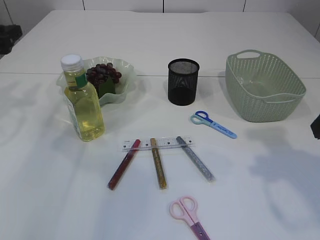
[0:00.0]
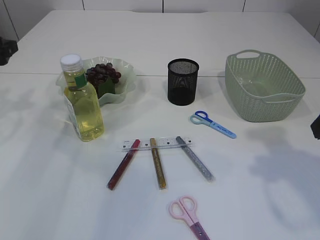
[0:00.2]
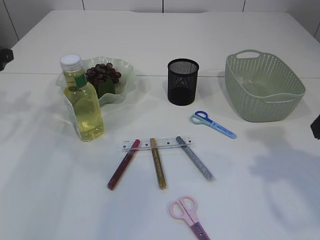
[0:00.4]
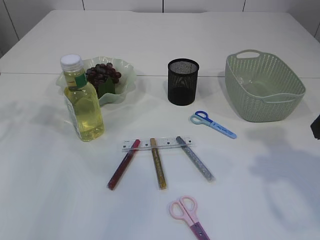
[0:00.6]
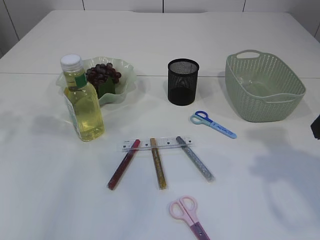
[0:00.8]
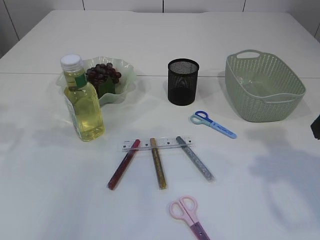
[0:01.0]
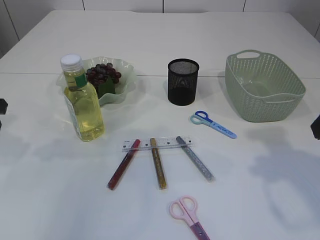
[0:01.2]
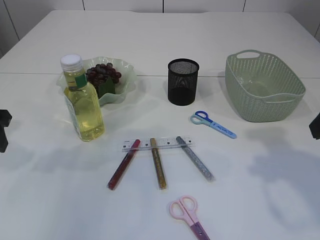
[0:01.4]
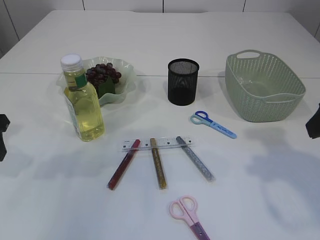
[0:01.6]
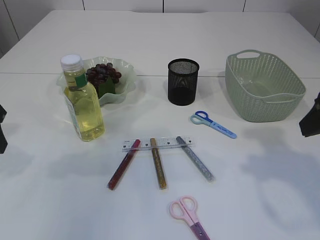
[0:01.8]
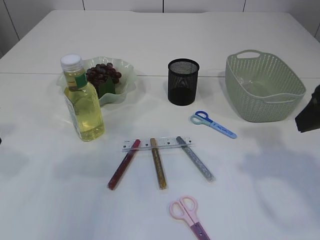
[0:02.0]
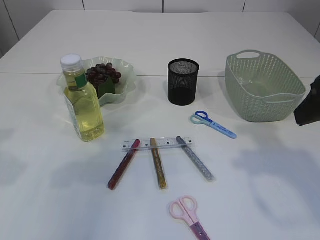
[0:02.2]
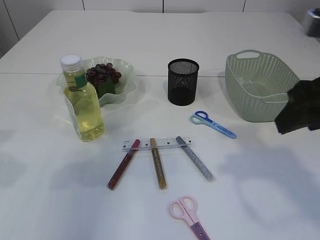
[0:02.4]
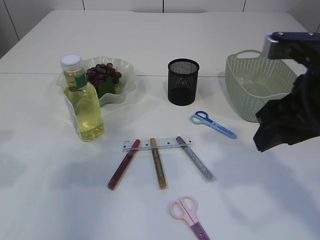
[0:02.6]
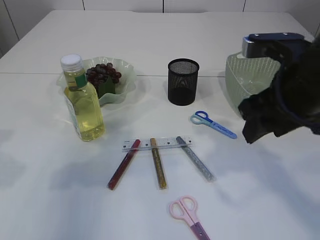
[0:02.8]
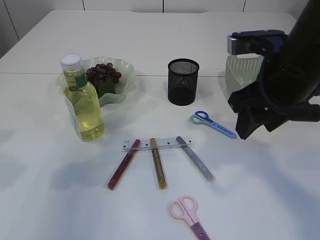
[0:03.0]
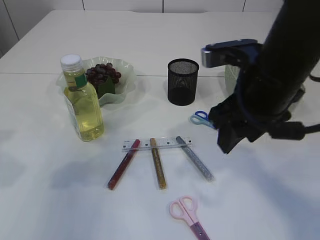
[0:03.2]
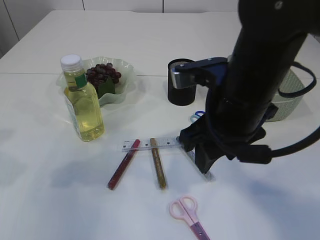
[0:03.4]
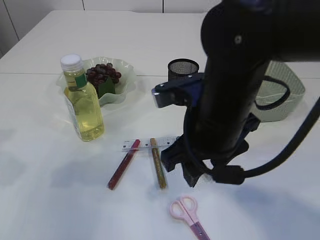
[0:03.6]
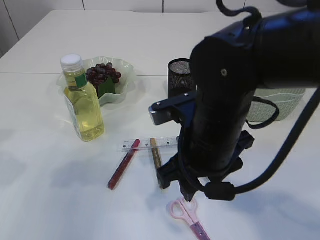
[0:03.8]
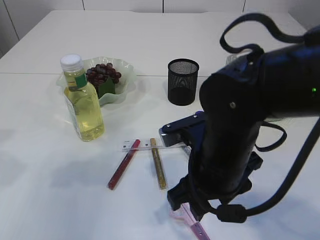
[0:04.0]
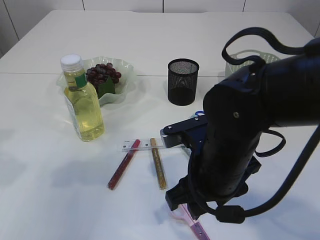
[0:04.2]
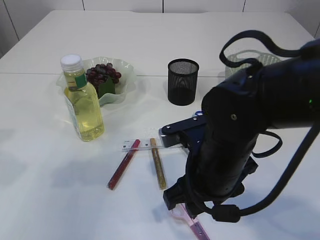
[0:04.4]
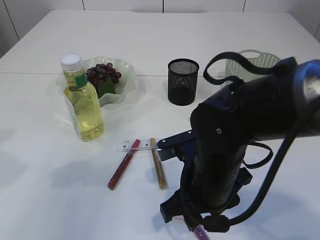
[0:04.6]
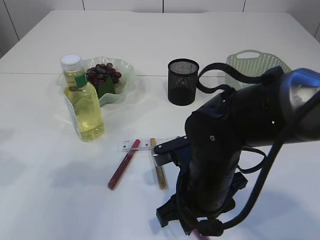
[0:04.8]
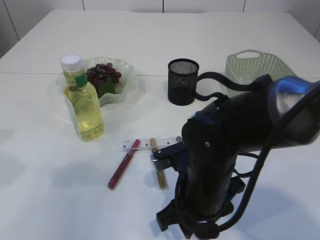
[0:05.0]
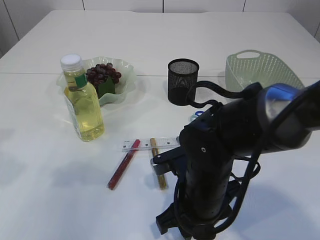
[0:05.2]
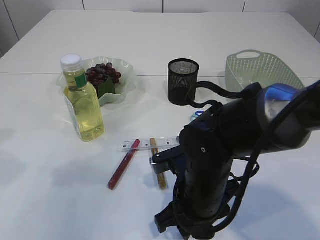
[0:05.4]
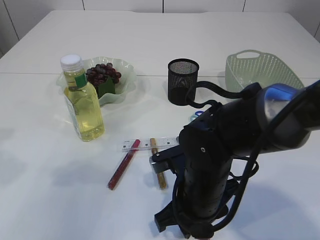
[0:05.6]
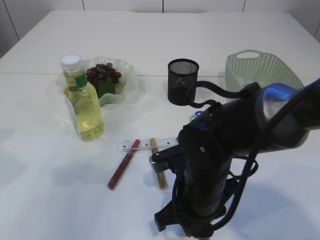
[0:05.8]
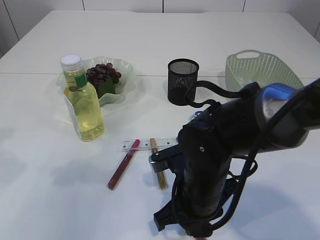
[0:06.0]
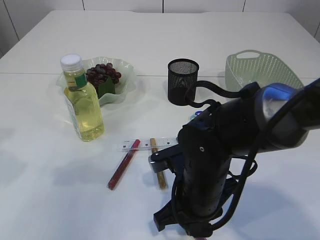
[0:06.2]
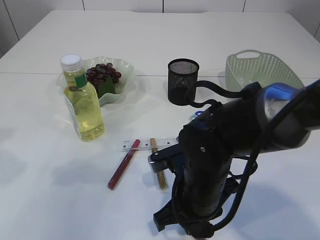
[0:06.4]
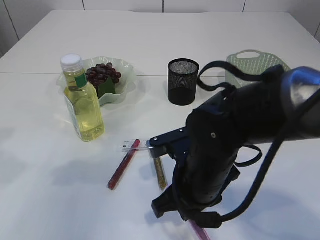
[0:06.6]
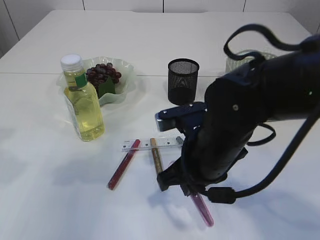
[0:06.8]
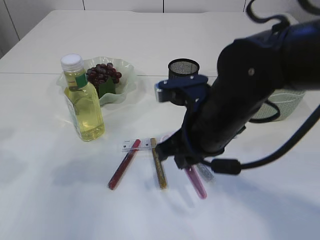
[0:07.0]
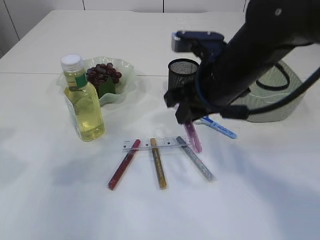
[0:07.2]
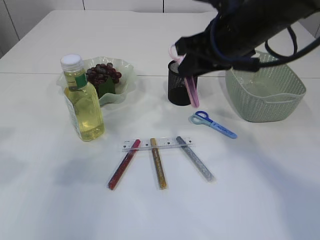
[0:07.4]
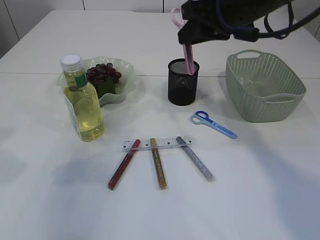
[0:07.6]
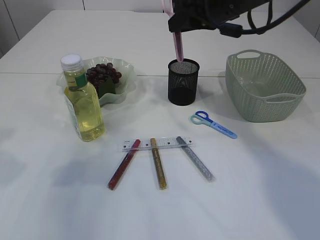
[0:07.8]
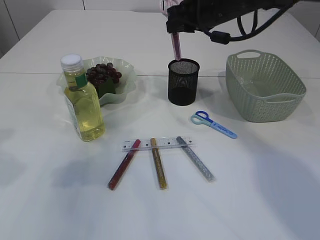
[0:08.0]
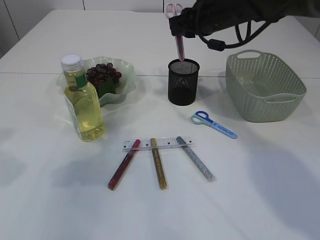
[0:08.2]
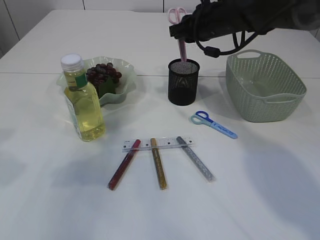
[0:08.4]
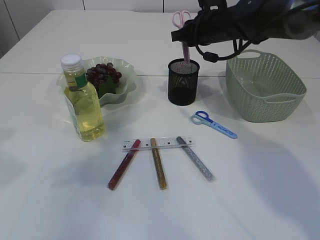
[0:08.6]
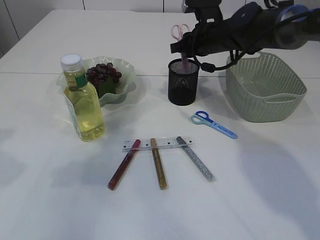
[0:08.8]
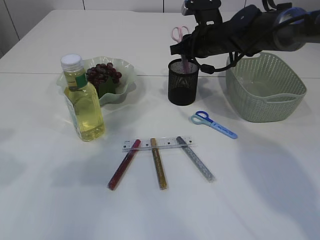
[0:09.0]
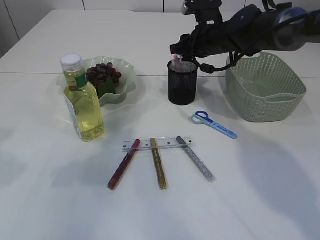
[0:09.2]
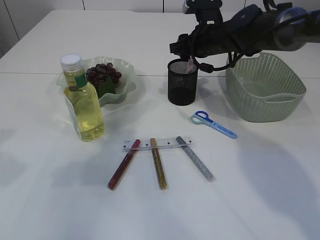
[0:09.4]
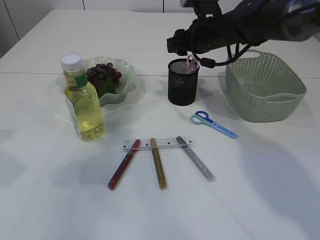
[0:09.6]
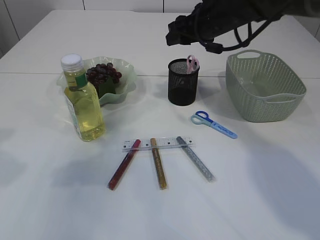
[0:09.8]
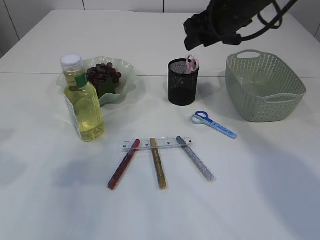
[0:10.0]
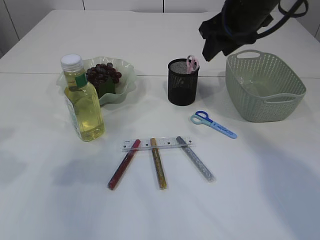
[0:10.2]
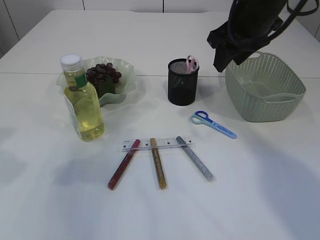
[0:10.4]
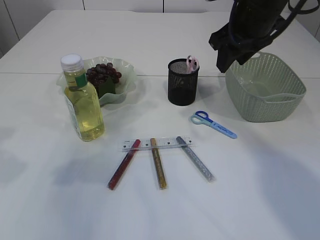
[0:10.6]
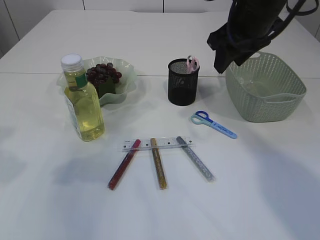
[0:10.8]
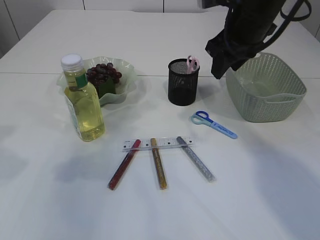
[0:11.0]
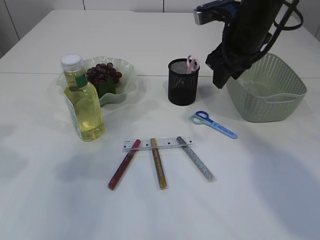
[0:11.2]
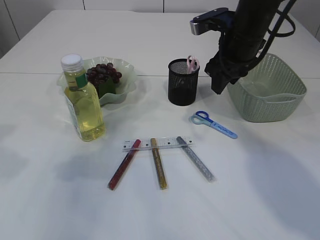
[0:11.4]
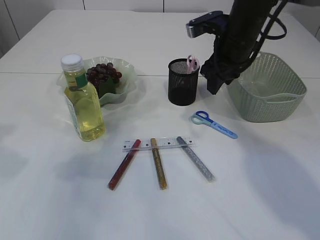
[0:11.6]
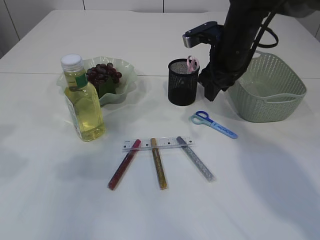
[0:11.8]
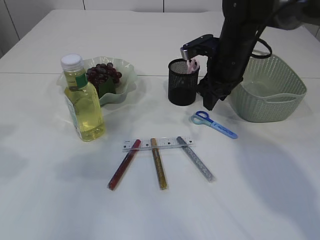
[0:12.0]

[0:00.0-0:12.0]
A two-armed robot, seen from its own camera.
Step, 0:00.0 to 0:07.0: pick up the pink scissors.
Step, 0:07.2 to 0:09.6: Place the pink scissors into the pen holder.
0:00.0 to 0:01.6: The left gripper moves backward and to the right, approximately 10 cm.
0:01.6 to 0:03.0: The right gripper travels to the left and forward by roughly 10 cm; the left gripper moves about 5 cm.
0:03.0 to 0:04.4: The right gripper shifts approximately 15 cm downward and to the left.
0:04.4 to 0:06.0: The right gripper goes roughly 5 cm downward, and closes.
0:06.0 to 0:07.6: The right gripper travels upward and forward by roughly 25 cm.
0:07.6 to 0:09.0: The right gripper moves forward and downward, about 15 cm.
0:09.0 to 0:10.4: The right gripper moves backward and upward, approximately 15 cm, and opens its fingers.
0:10.4 to 0:12.0: The right gripper moves downward and forward, about 10 cm.

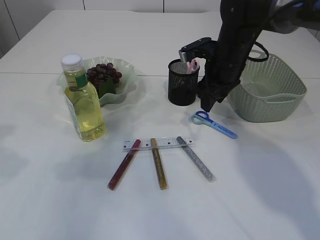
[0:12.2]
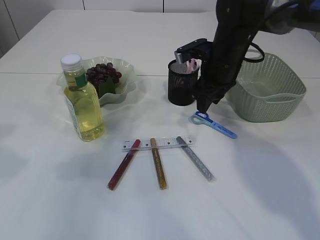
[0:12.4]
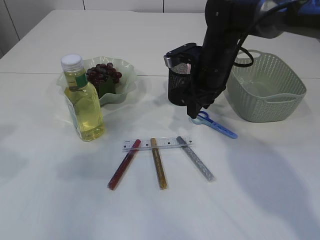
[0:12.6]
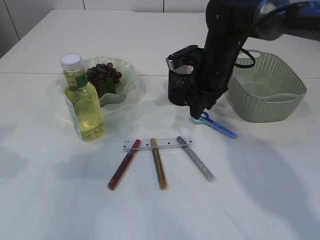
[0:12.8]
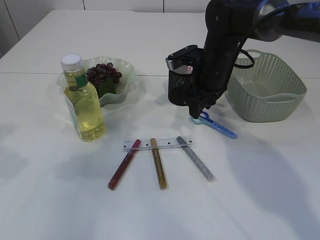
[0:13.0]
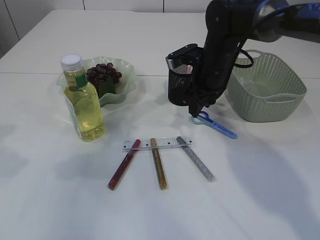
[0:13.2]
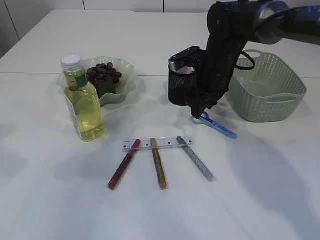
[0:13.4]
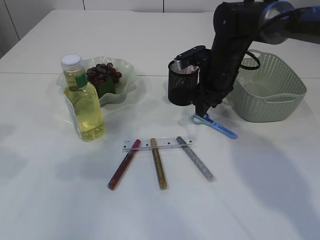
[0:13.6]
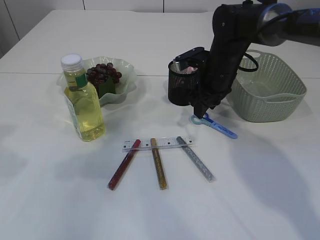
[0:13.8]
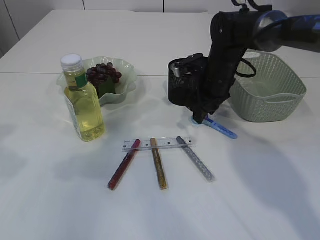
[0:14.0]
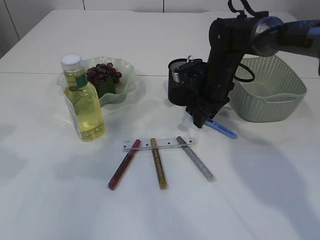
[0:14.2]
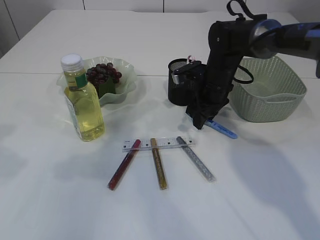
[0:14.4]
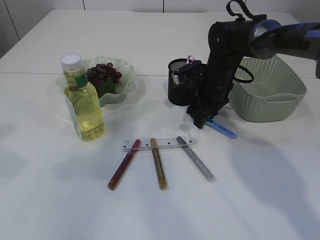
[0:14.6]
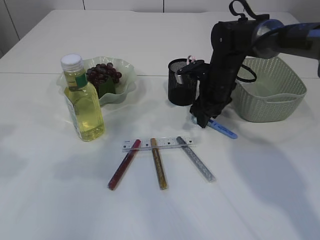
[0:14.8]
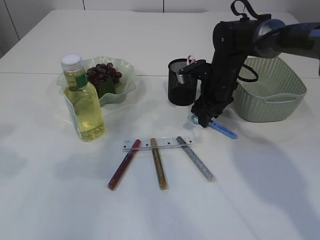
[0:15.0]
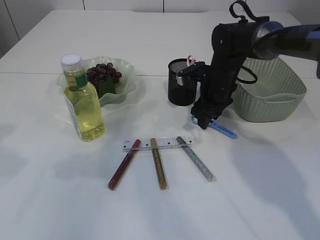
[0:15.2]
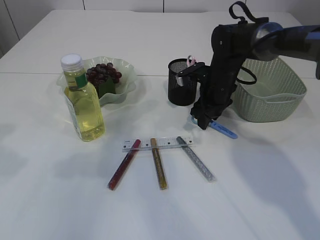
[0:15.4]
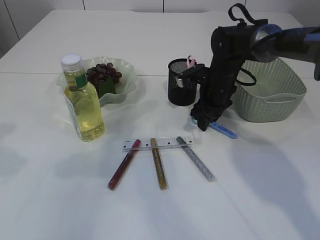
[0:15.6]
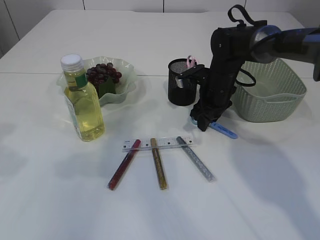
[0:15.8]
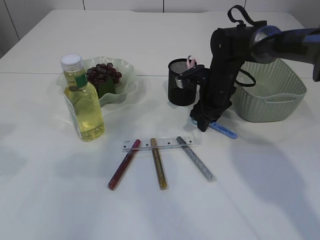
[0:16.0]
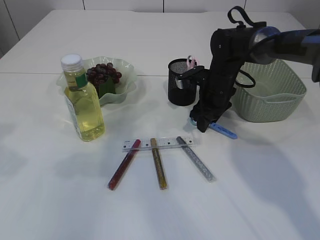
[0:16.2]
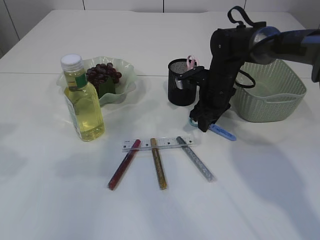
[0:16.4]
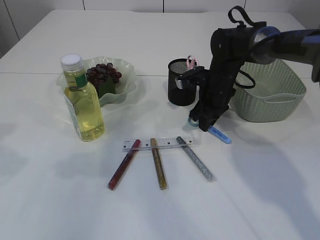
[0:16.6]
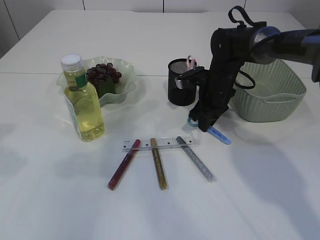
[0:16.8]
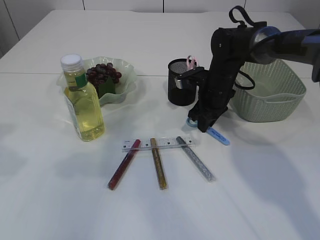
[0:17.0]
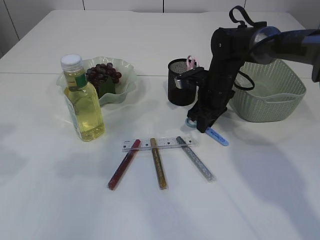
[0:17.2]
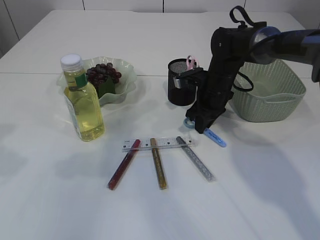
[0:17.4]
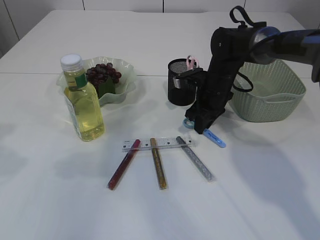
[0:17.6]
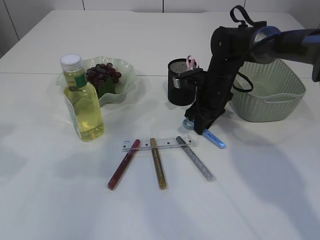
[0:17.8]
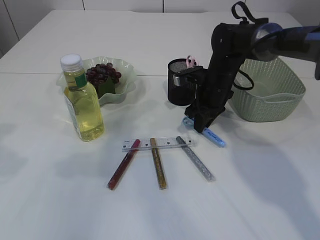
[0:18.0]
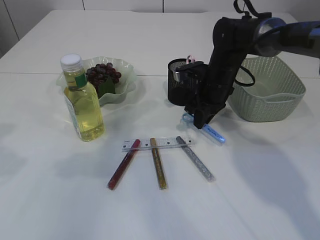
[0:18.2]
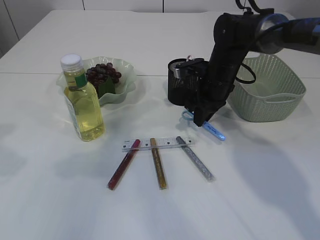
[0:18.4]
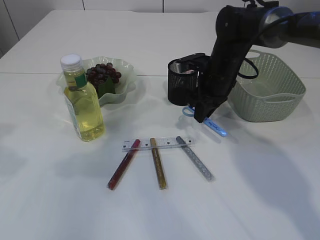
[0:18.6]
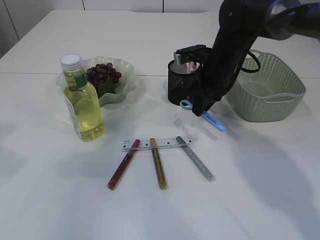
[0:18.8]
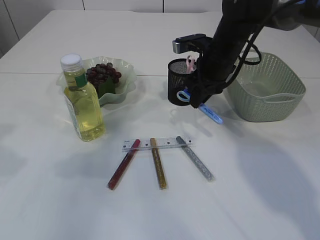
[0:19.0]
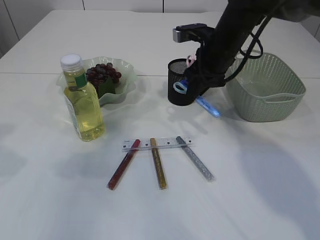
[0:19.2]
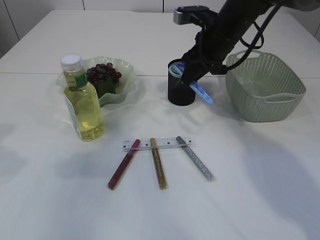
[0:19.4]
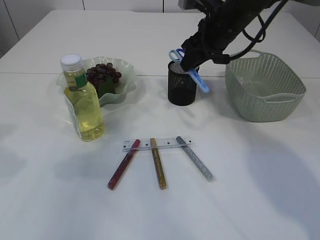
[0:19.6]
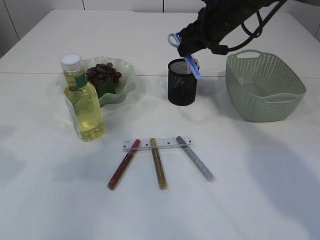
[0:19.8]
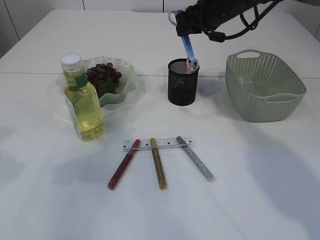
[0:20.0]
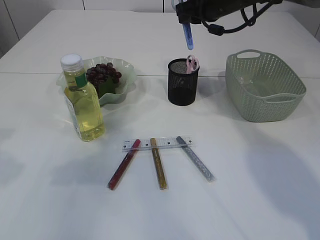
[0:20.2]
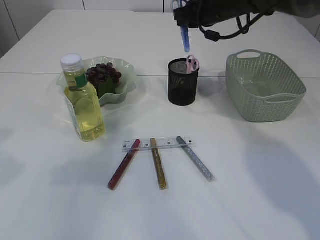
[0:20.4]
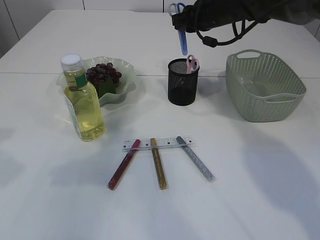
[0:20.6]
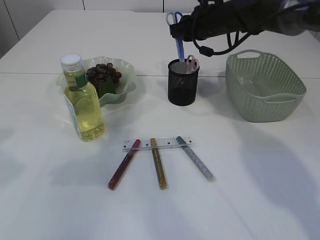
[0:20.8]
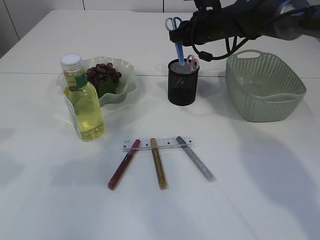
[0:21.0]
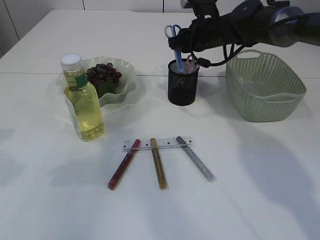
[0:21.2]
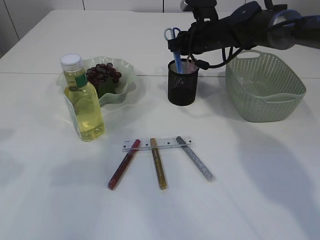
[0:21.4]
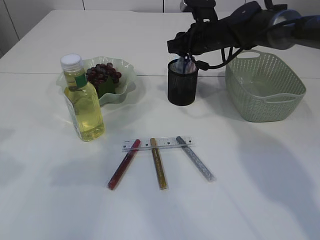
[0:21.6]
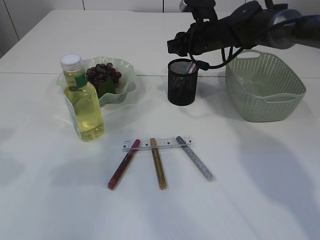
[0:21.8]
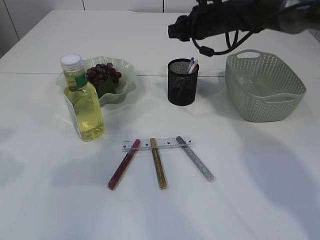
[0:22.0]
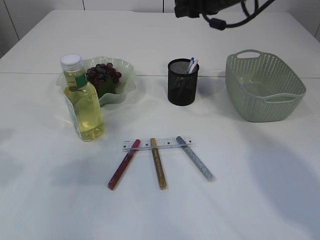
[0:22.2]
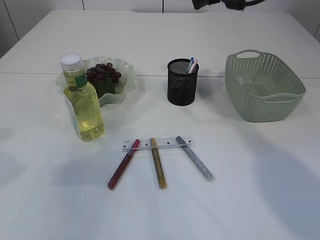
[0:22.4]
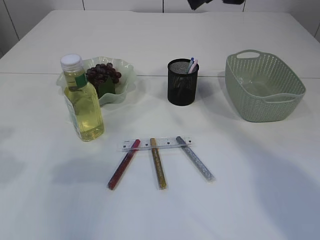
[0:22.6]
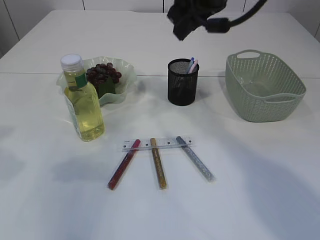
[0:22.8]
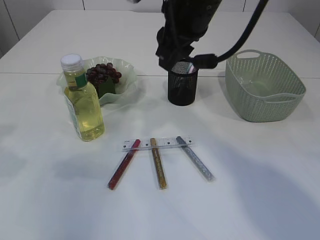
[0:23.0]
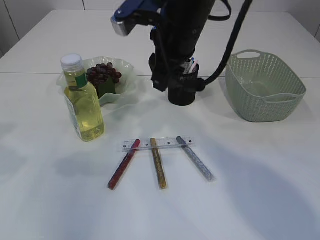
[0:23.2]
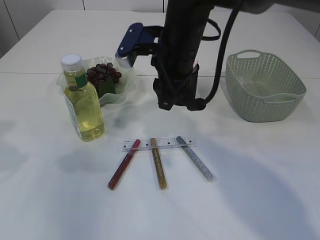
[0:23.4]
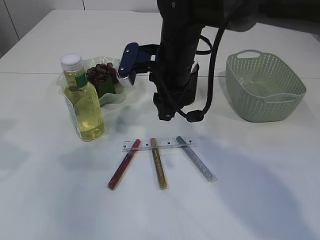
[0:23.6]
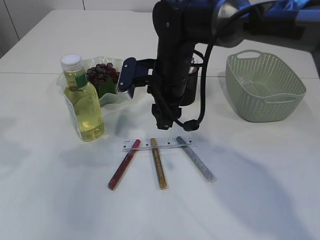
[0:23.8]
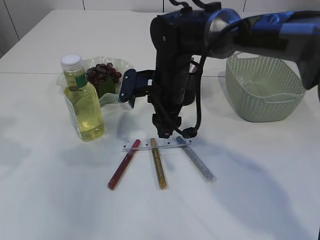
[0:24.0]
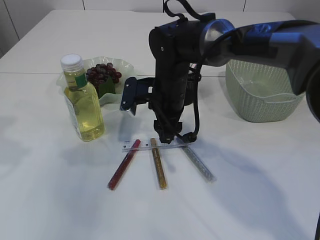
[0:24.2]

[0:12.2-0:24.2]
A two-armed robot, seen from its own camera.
Step, 0:12.2 to 0:19.2: pick up the blue scissors.
Step, 0:19.4 to 0:22.0: Place the blue scissors into the pen holder.
0:12.2 to 0:13.8: There are only small adjustments of the grippers.
0:13.8 to 0:15.2: The grippers stay close to where they were, moving slightly.
0:15.2 to 0:16.6: The right gripper closes up.
0:16.6 to 0:18.2: The grippers stay close to where they were, moving slightly.
0:18.2 to 0:19.8: The right gripper is displaced upward by some 15 cm.
0:19.8 to 0:21.2: The right gripper shifts about 10 cm forward and downward.
0:21.2 to 0:22.6: The right gripper is displaced upward and backward by some 20 cm.
0:22.6 to 0:24.2: The right gripper moves downward and to the left, about 25 cm.
